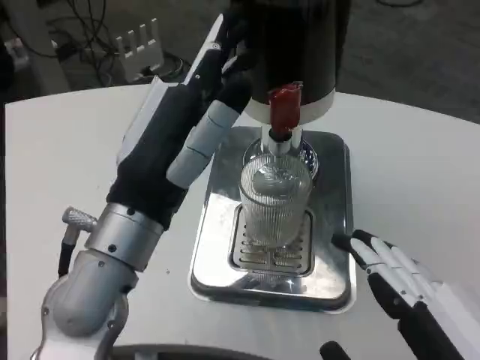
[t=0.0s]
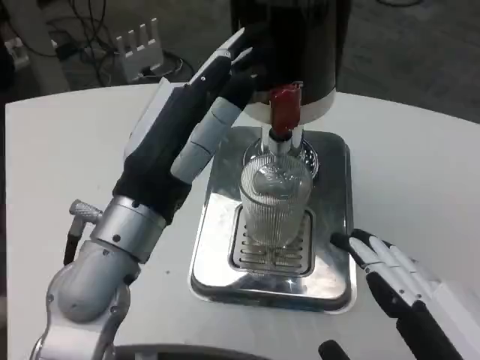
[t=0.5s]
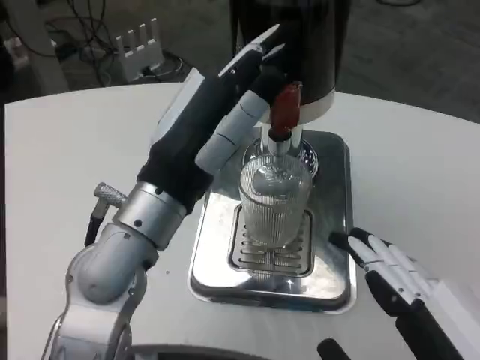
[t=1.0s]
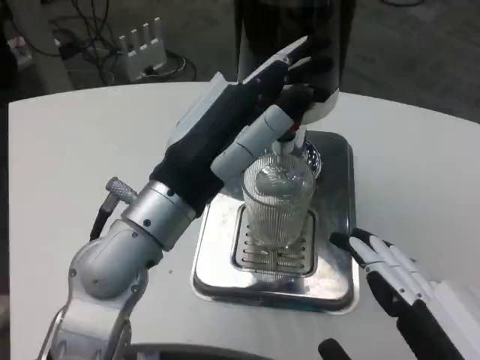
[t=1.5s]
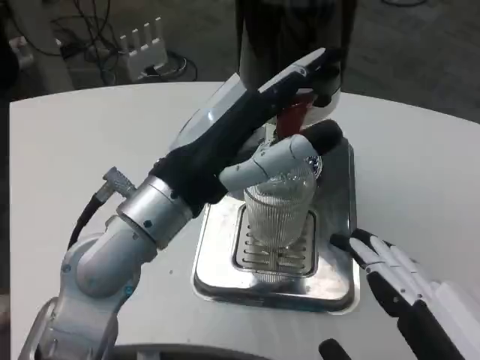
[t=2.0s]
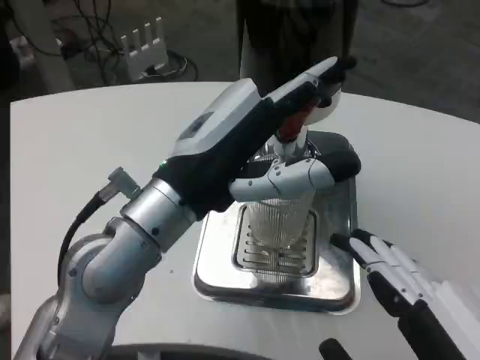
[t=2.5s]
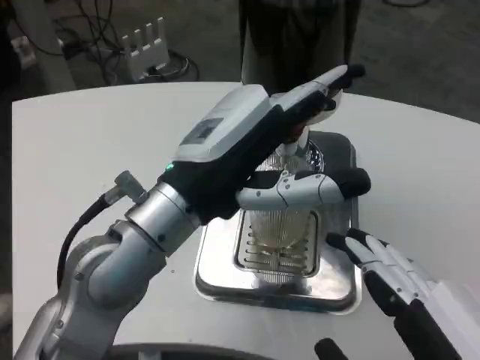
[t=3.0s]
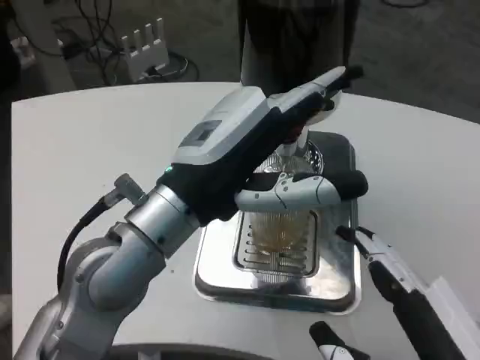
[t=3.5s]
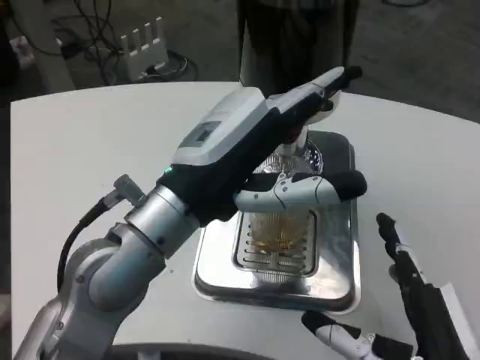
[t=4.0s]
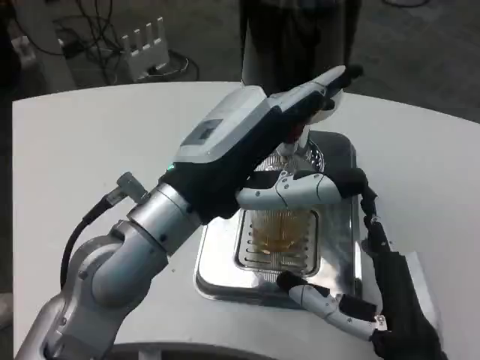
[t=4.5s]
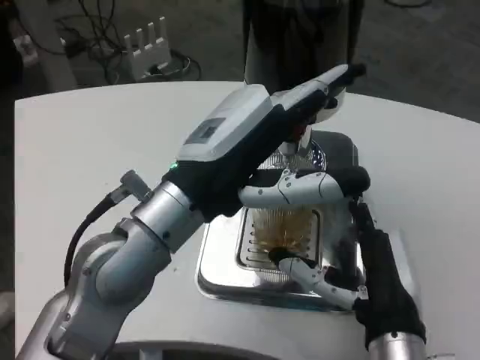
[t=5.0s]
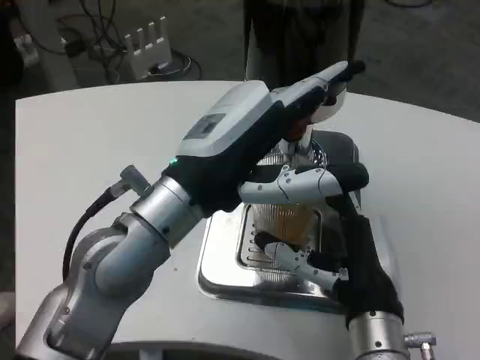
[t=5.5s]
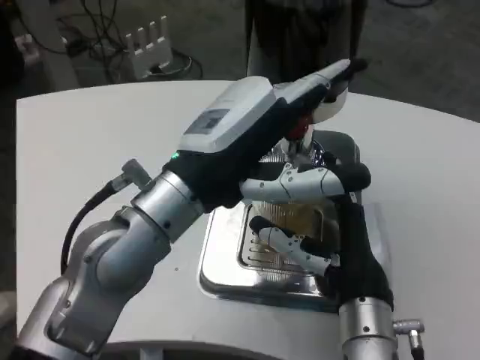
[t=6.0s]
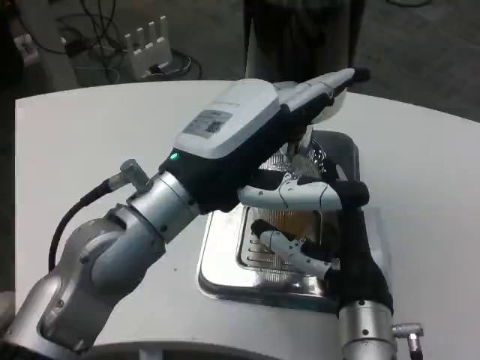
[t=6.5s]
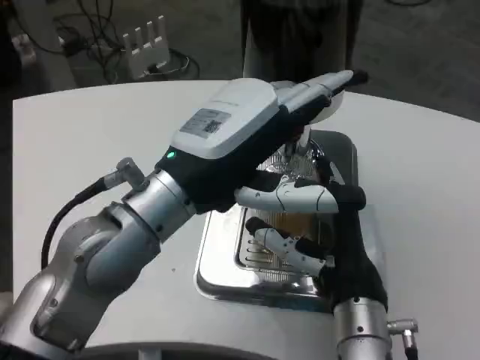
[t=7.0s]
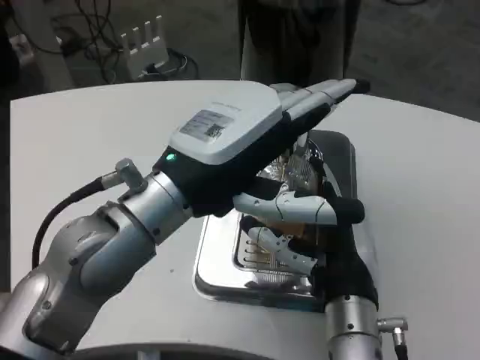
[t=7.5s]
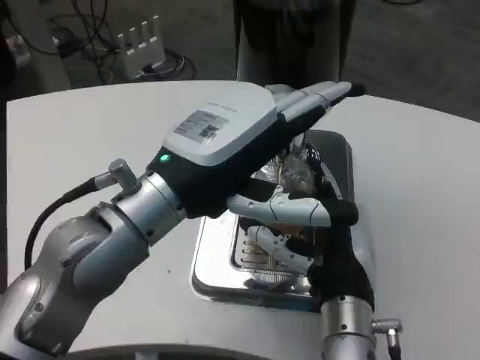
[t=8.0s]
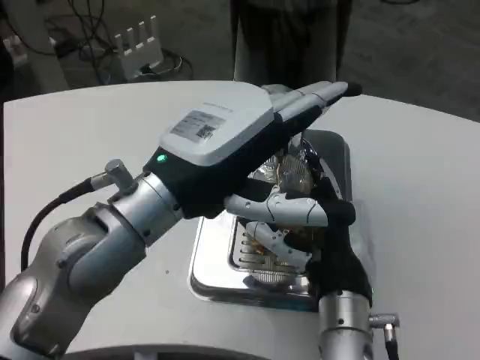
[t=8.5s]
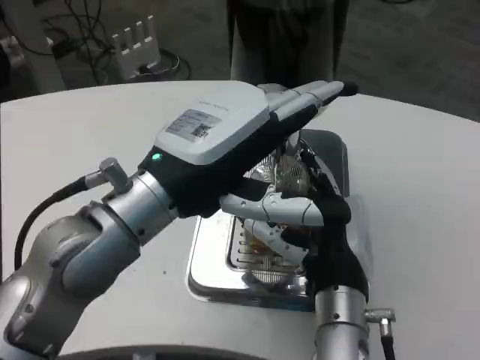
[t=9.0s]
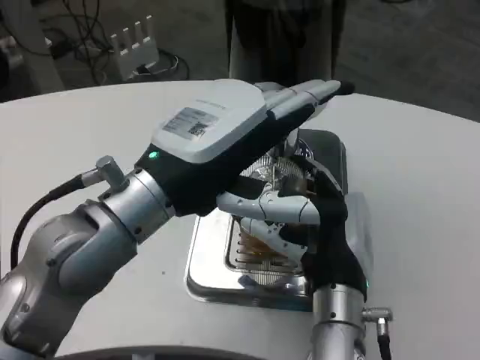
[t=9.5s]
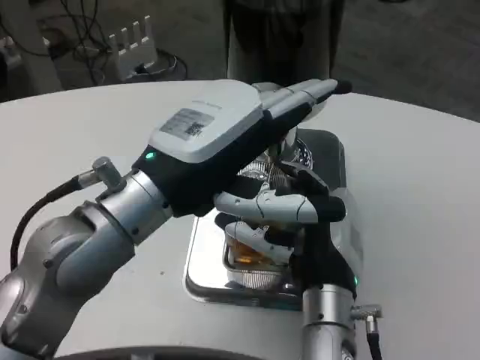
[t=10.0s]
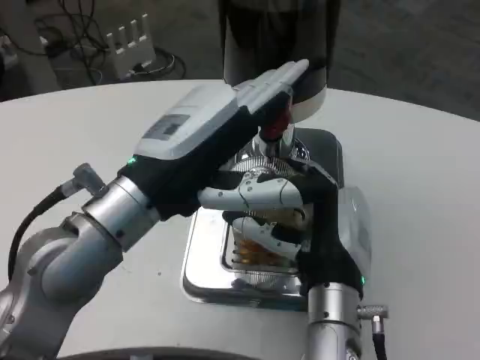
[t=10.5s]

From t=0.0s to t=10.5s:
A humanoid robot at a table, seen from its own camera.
Task of the whole recording: Grasp the cup under the faucet to collect the drink, then remove the cup.
From t=2.0s to t=4.0s: The right hand travels forward and downward by some 10 cm.
From t=4.0s to t=6.5s: The right hand shifts roughly 10 cm forward and to the left.

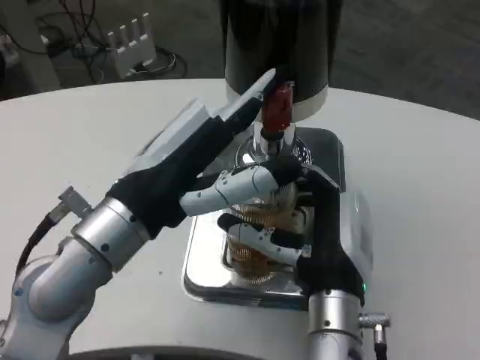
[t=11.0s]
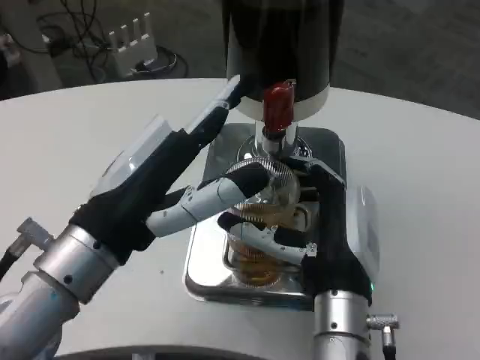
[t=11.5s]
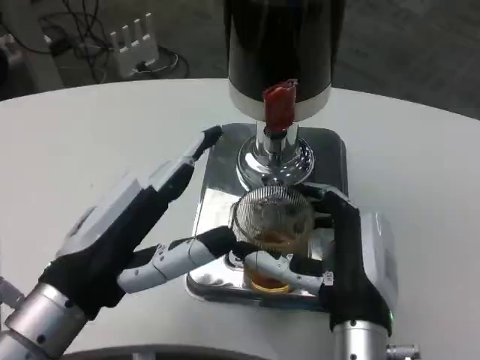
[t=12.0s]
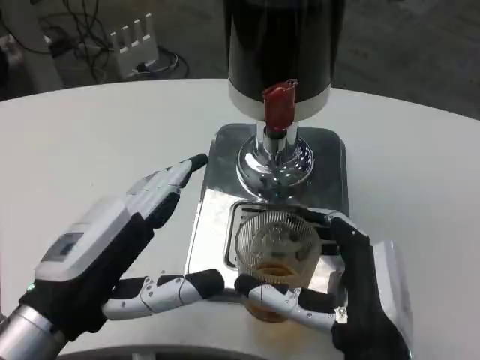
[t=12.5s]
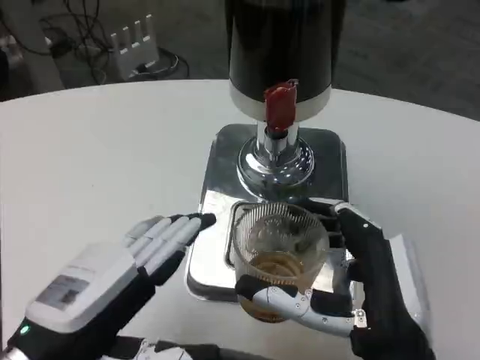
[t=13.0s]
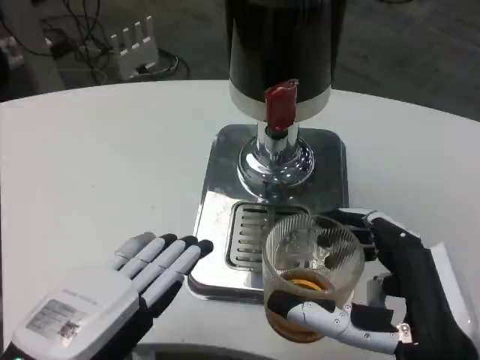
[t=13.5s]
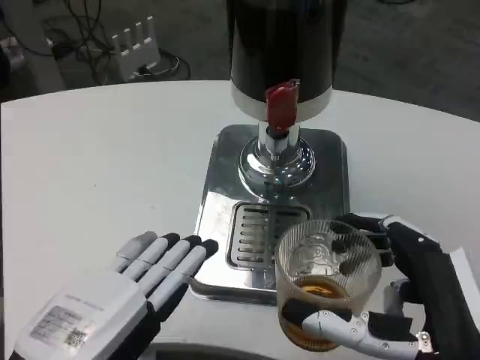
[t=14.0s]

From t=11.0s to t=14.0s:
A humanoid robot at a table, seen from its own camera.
Task of the whole recording: Grasp the cup under the faucet to collect the drink, then remove the cup.
From t=11.0s to t=12.5s: The right hand is displaced backward by some 5 cm. The left hand shifts some 10 cm downward, to the left and backward.
From t=12.5s to t=14.0s: The right hand is displaced backward and to the right by approximately 10 cm; the left hand heads backward, covering about 5 cm.

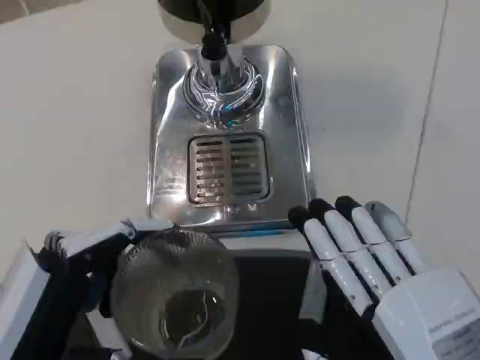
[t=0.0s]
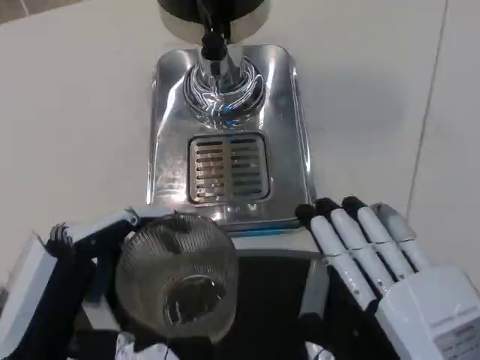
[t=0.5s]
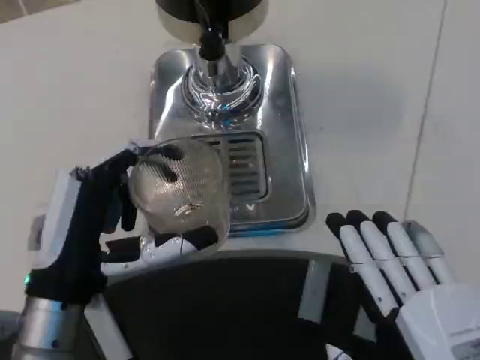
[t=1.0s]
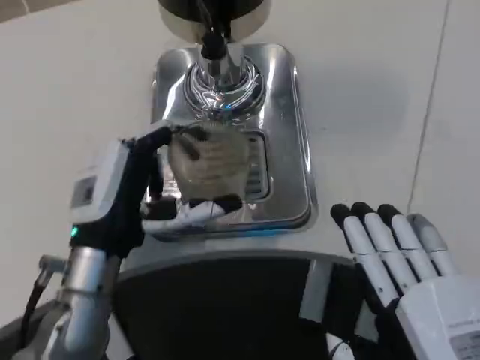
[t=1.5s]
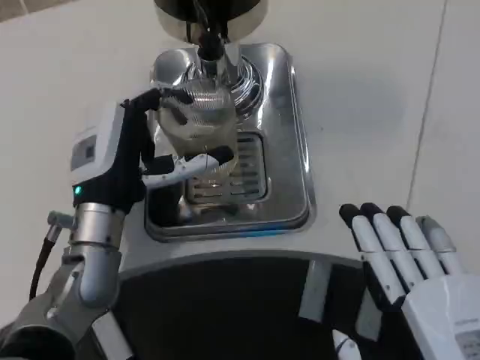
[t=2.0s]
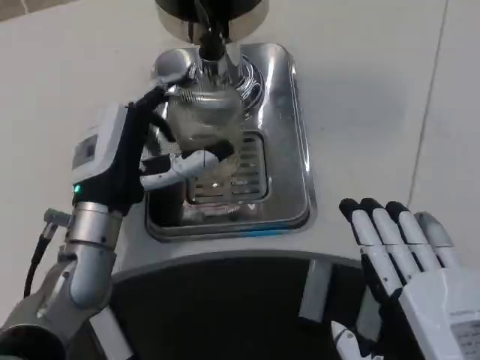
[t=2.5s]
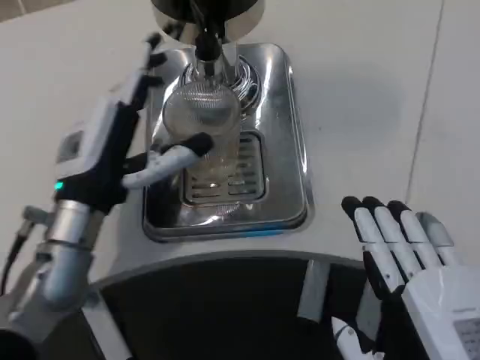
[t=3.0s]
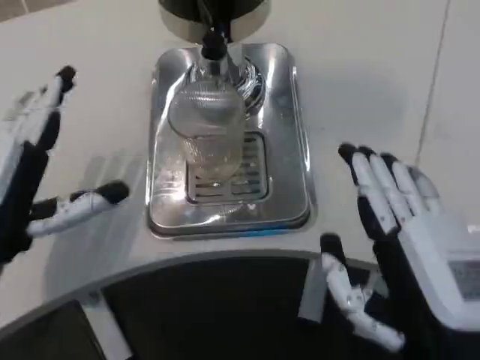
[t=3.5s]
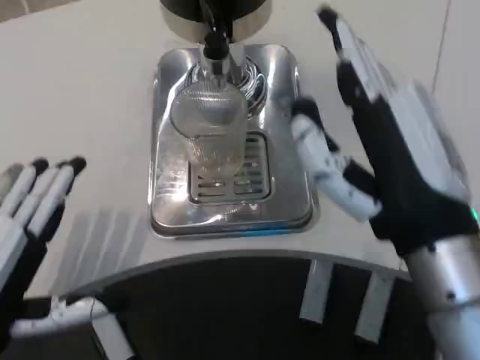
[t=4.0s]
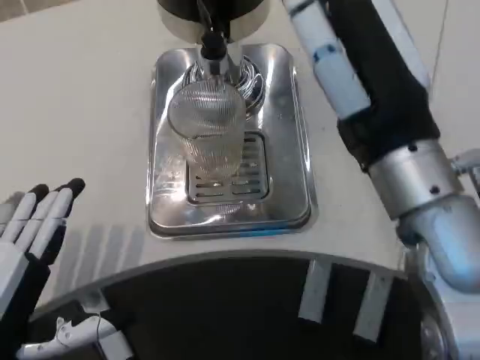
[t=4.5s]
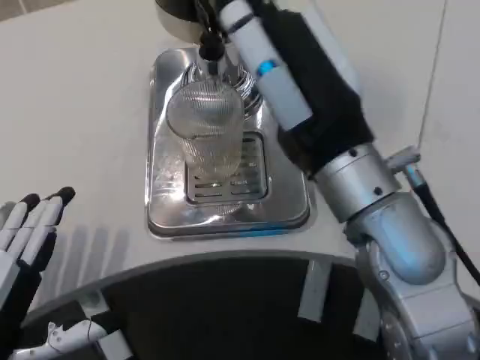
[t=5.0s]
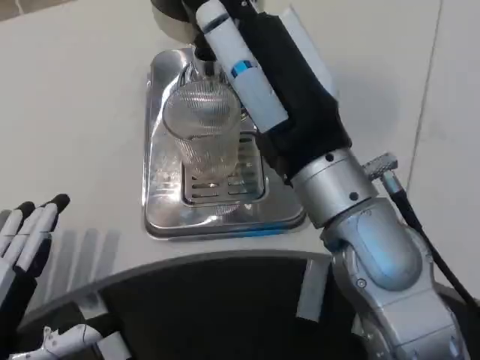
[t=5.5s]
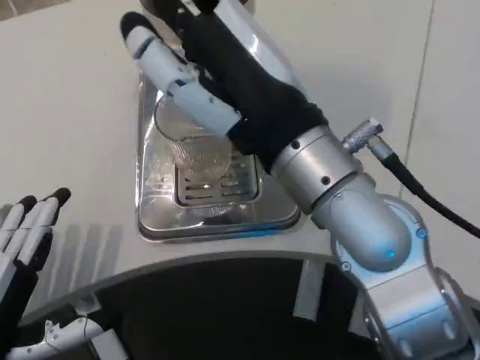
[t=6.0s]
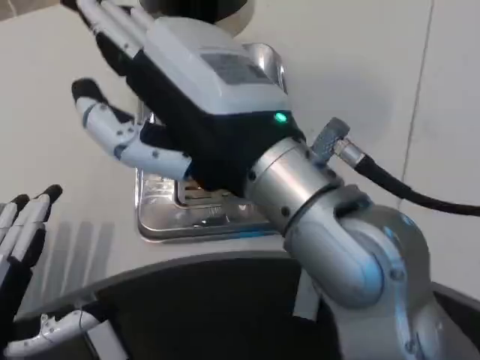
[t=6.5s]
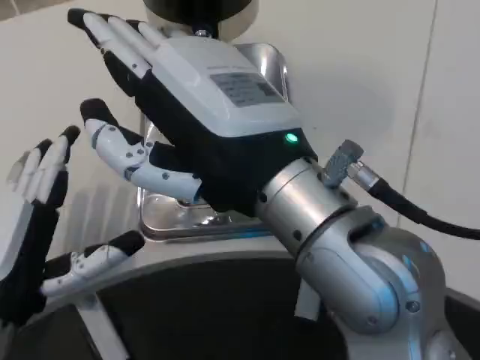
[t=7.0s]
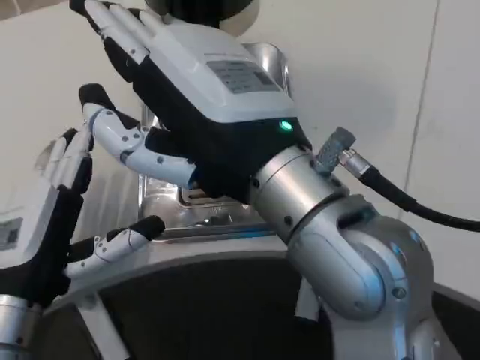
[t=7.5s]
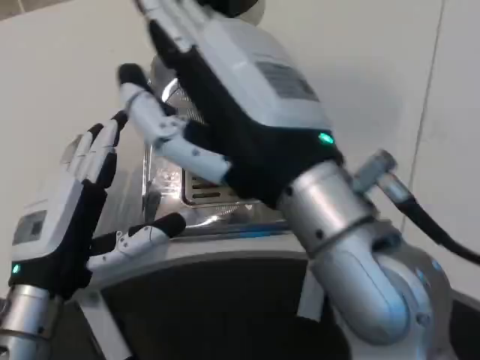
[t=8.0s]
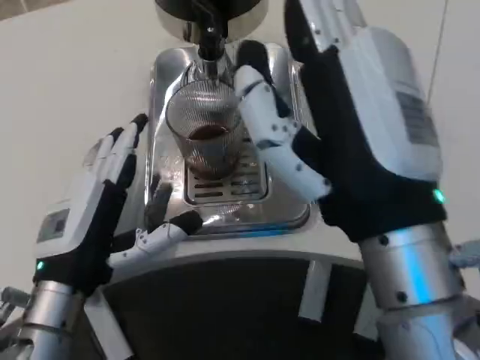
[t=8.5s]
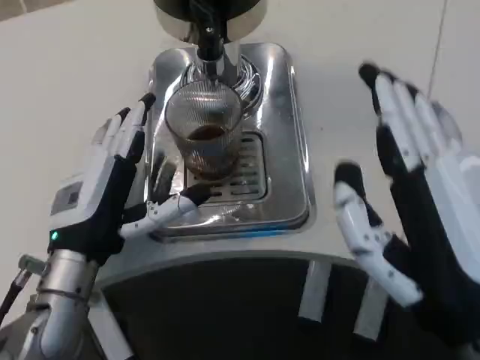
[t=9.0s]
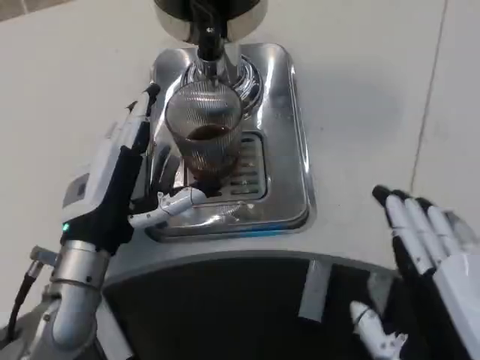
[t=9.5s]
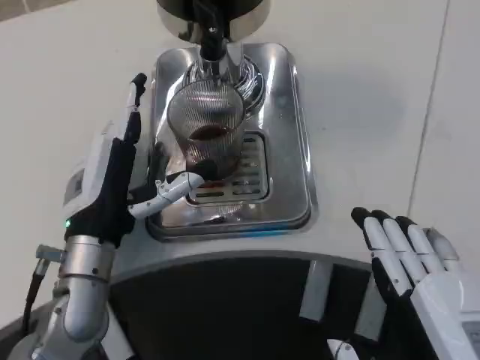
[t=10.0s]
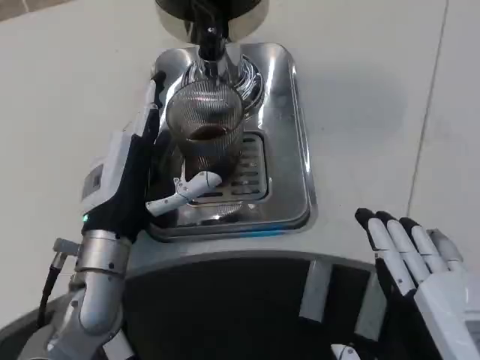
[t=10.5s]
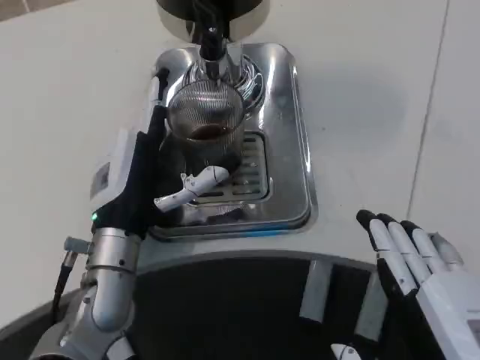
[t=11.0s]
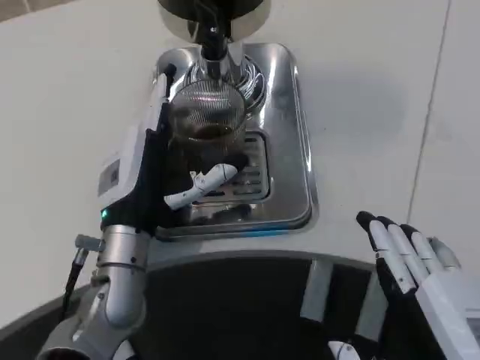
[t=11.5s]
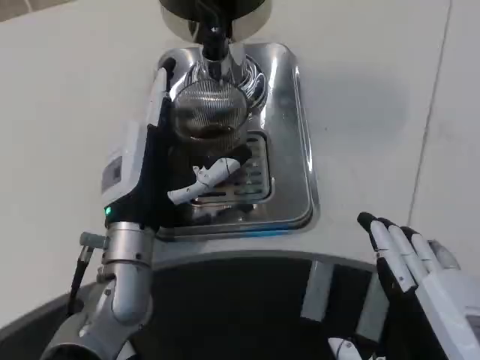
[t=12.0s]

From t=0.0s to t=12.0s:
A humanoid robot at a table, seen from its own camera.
Task of the whole recording: Grasp the cup under the faucet to collect the drink, then remove the cup.
From t=0.0s to t=2.0s: The left hand is displaced forward by about 20 cm.
From t=2.0s to t=4.0s: The left hand is displaced backward and to the left by about 20 cm. Meanwhile the right hand moves forward and upward, some 15 cm.
From t=4.0s to t=6.0s: The right hand is displaced to the left and upward by some 10 cm.
From t=6.0s to t=8.0s: The left hand is displaced forward and to the right by some 10 cm.
From t=8.0s to t=10.0s: The right hand goes some 20 cm downward, backward and to the right; the left hand goes some 5 cm forward.
